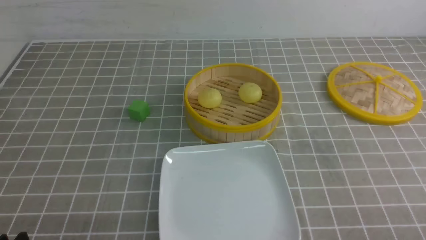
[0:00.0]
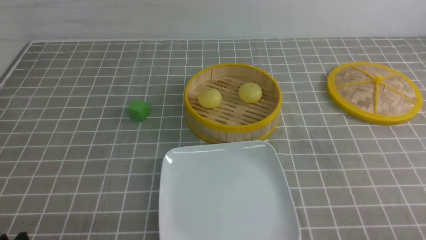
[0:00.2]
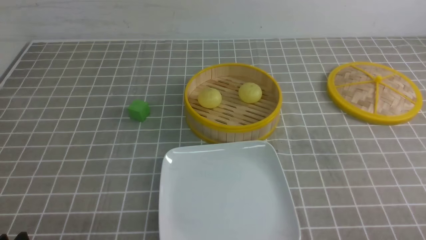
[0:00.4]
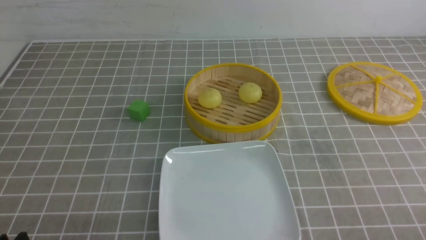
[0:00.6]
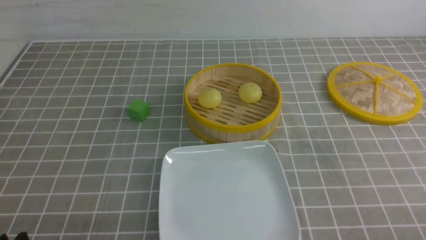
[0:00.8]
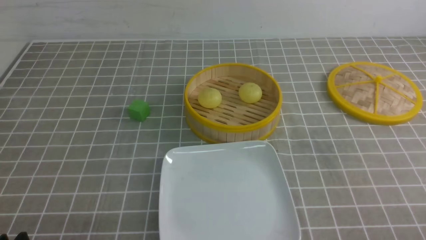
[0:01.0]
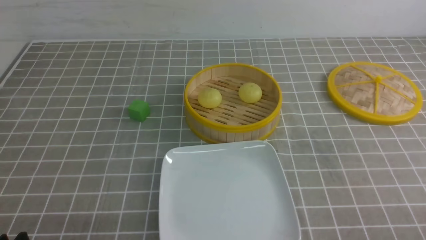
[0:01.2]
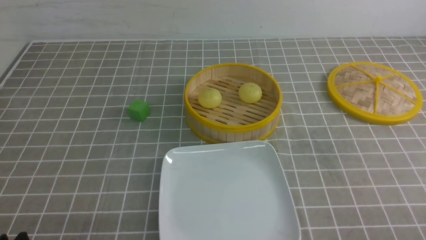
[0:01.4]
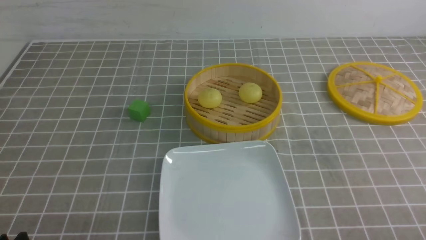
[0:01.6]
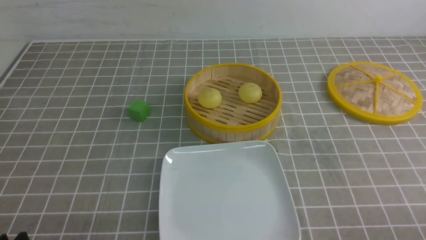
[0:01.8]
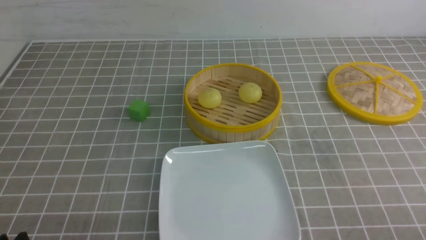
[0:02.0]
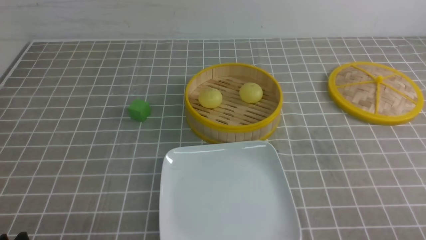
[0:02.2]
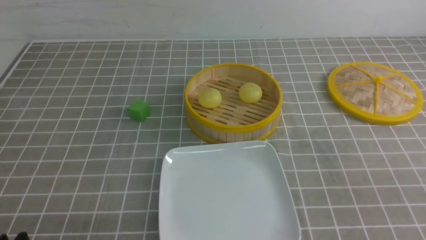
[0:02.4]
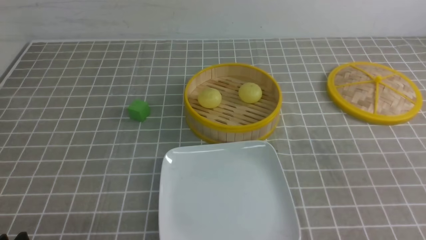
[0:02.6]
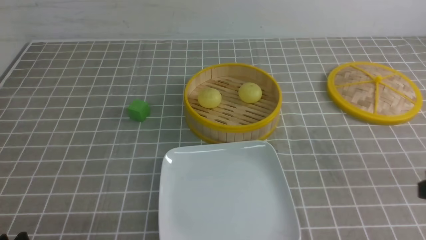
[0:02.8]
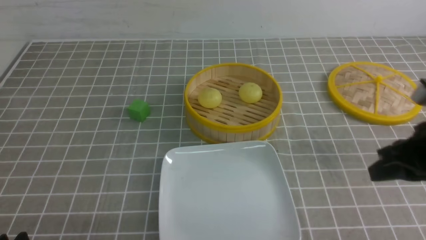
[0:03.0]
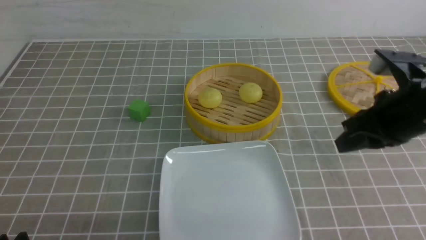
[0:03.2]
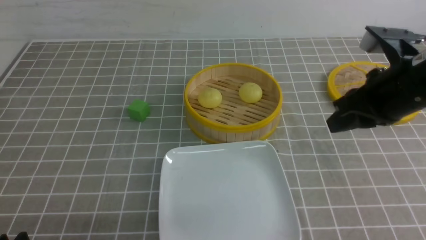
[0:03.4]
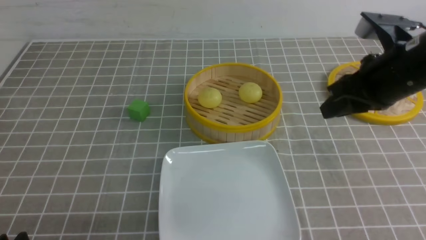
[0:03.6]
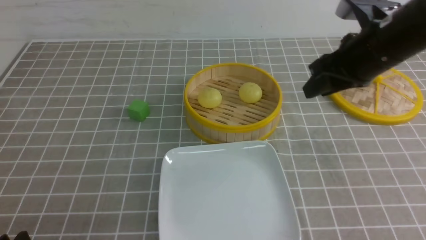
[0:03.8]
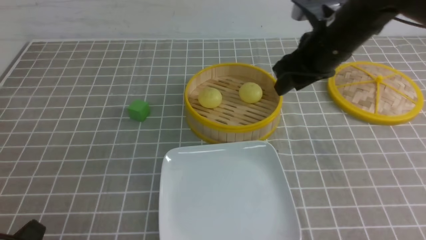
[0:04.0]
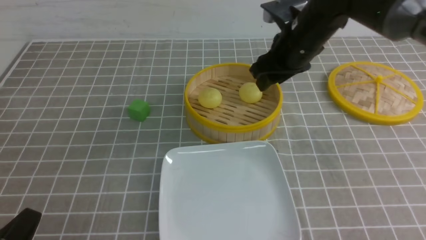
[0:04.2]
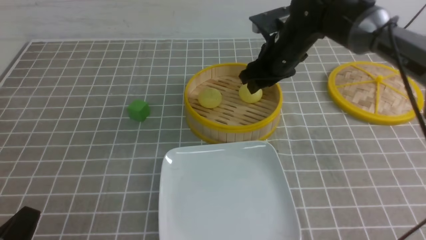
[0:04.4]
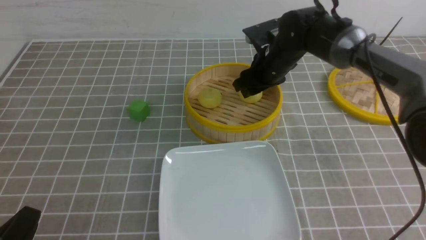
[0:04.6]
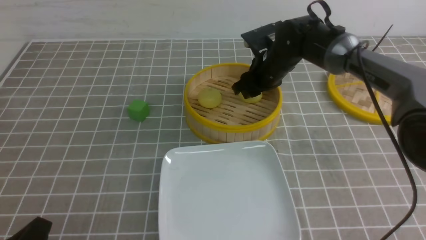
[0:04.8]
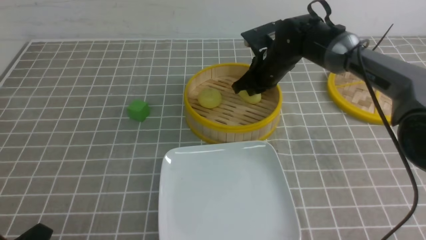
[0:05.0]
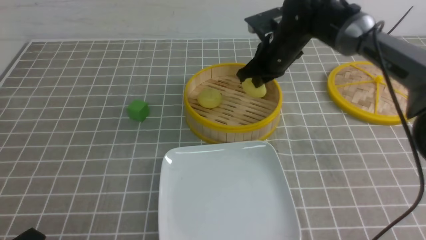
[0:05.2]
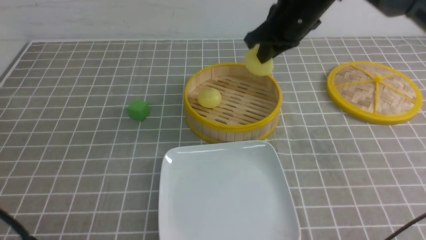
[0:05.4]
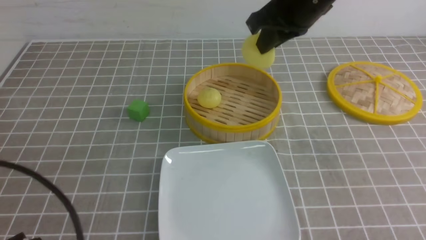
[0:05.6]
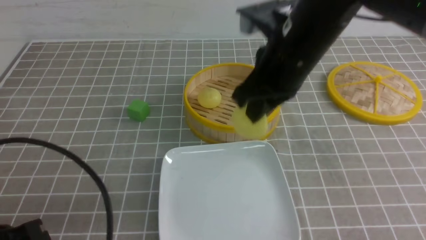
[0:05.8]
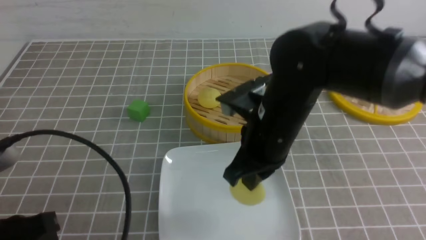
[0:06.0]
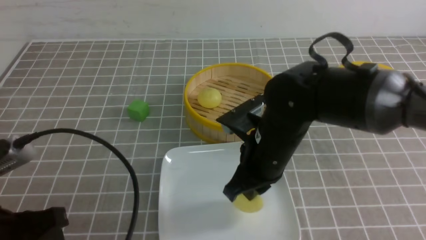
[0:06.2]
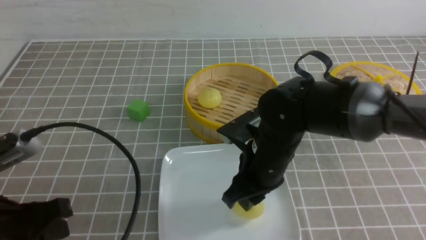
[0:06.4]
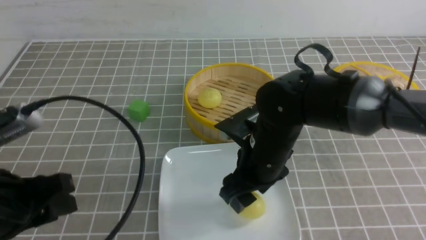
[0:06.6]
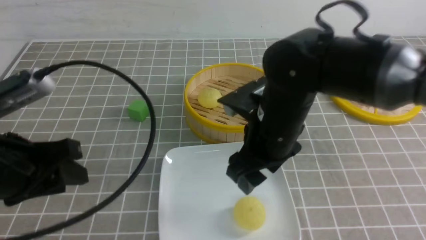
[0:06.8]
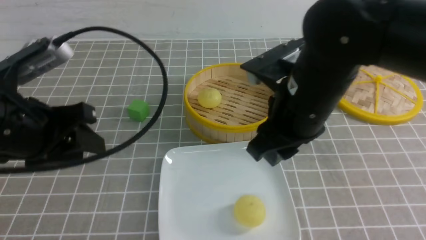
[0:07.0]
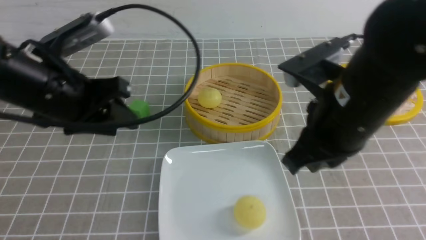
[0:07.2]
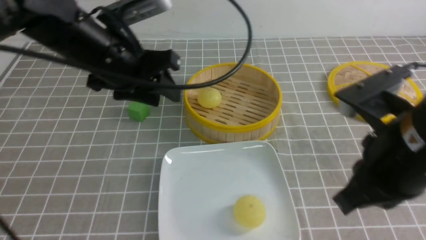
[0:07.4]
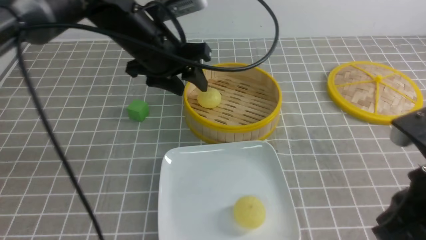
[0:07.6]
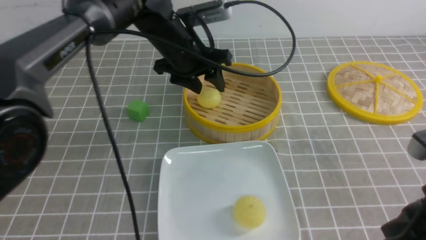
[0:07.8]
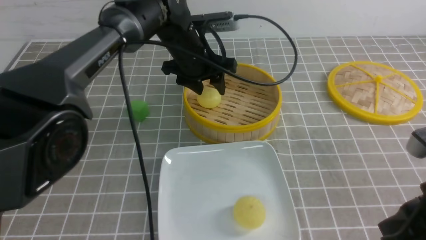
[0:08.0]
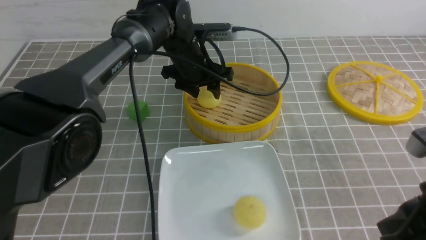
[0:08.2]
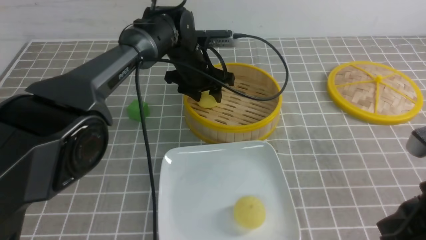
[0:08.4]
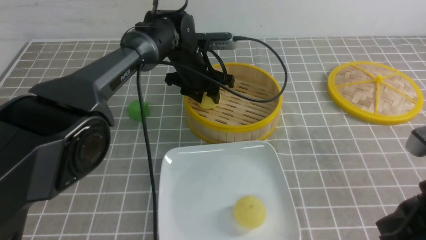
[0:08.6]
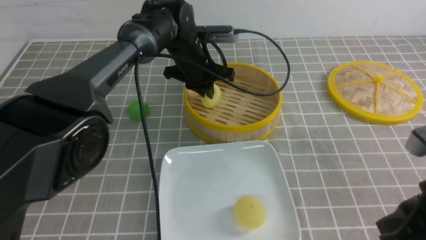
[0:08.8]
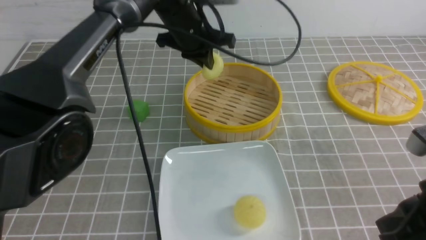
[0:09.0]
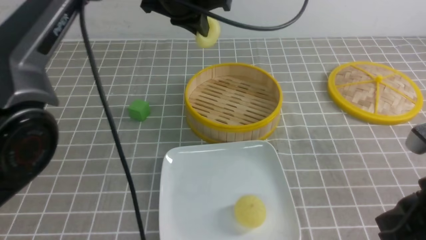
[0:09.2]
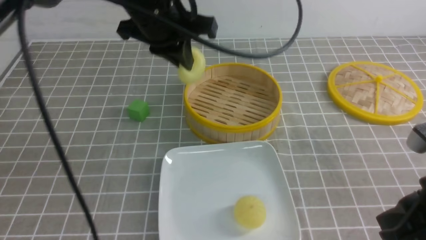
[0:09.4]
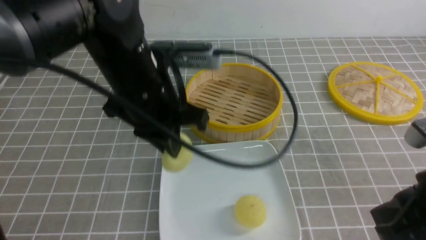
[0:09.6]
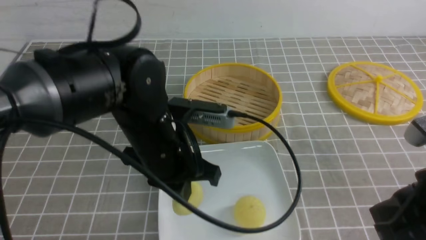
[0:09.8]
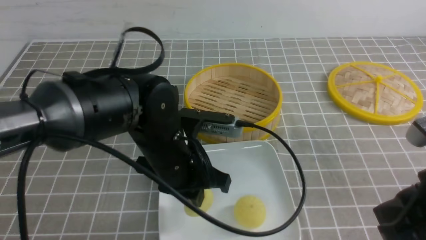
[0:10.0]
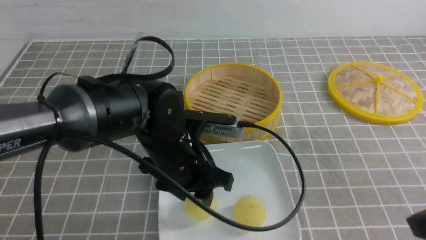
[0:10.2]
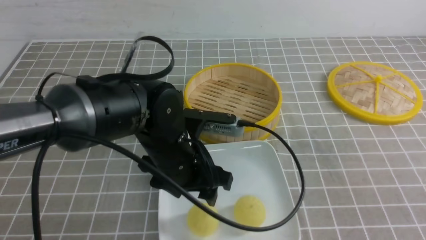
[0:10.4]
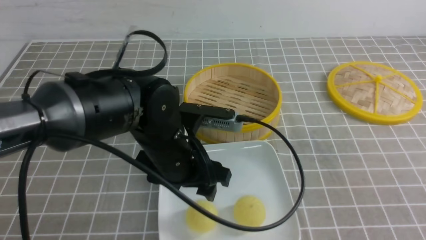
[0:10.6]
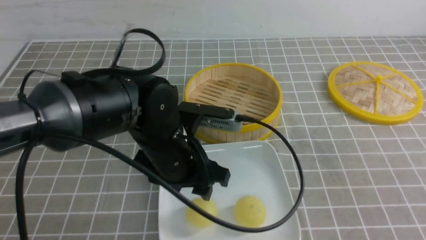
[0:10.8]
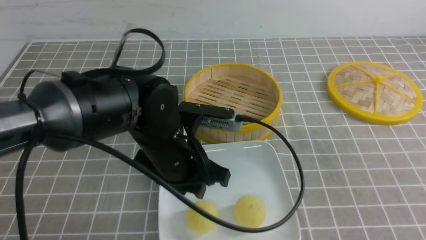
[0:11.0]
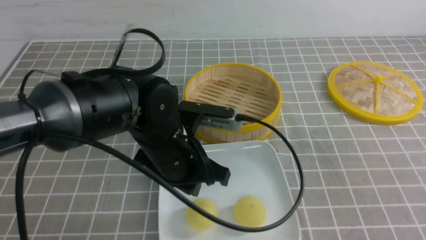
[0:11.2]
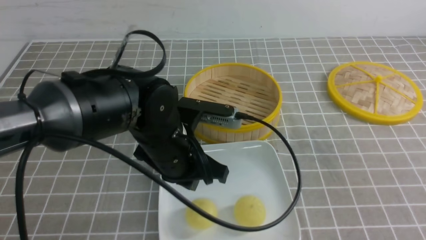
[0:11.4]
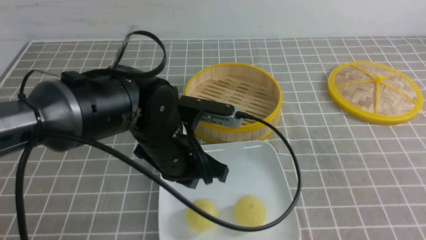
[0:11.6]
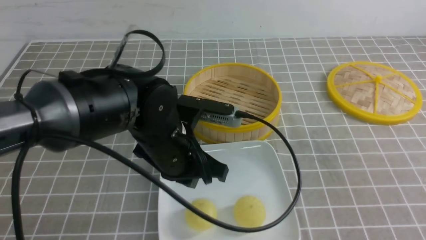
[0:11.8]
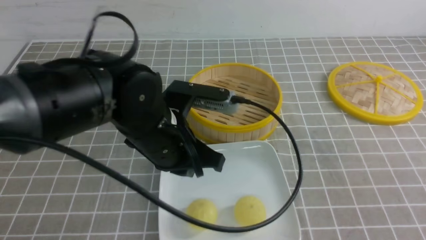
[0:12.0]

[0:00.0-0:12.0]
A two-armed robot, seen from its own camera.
Step, 0:00.0 to 0:05.0: use the right arm to grab the steamed stuffed bun that is closest to it.
Step, 0:05.2 to 0:06.4: use the right arm to put the steamed stuffed bun into the plate.
Step, 0:06.6 to 0:08.8: use the left arm to grab the steamed stuffed bun that is closest to it.
Step, 0:09.0 to 0:10.2: use the left arm to put the steamed stuffed bun into the plate.
0:01.6 to 0:03.0: The right gripper shifts some 20 cm forward and upward, and closes.
0:03.0 to 0:04.4: The right gripper moves forward and to the left, roughly 30 cm, and opens.
0:04.4 to 0:06.0: The left gripper heads upward, covering about 10 cm. Meanwhile the right gripper shifts about 15 cm backward, and closes.
0:06.0 to 0:07.6: The left gripper is displaced forward and to the right by some 30 cm, and opens up. Meanwhile the right gripper is displaced backward and to the right by approximately 20 cm, and opens, then closes once more.
0:07.6 to 0:09.0: The left gripper moves forward, approximately 5 cm, reaches about 10 cm downward, then returns, and closes its fingers.
0:09.0 to 0:10.4: The left gripper heads backward and downward, covering about 20 cm, and opens. Meanwhile the right gripper moves to the right and backward, some 10 cm.
0:10.4 to 0:12.0: The right gripper heads downward, covering approximately 5 cm; the left gripper goes about 5 cm upward, and closes up.

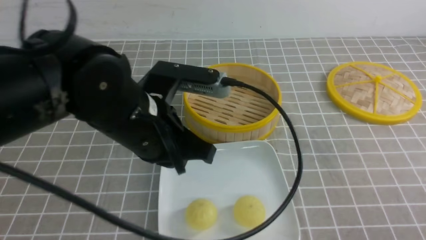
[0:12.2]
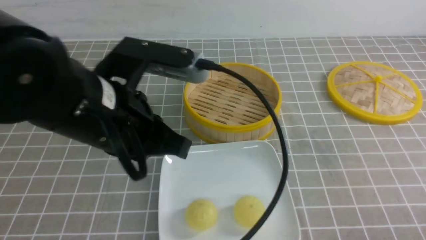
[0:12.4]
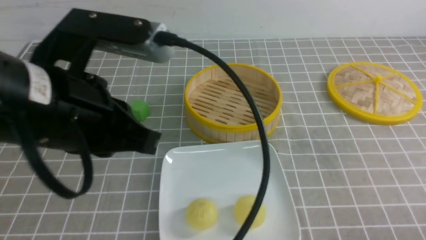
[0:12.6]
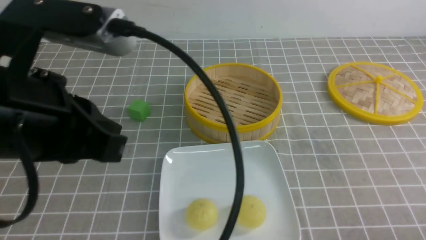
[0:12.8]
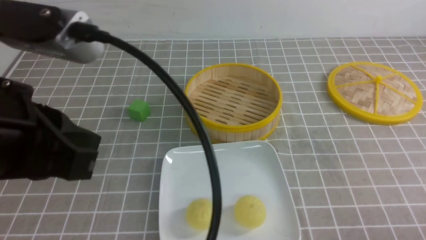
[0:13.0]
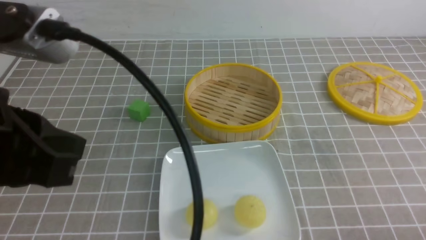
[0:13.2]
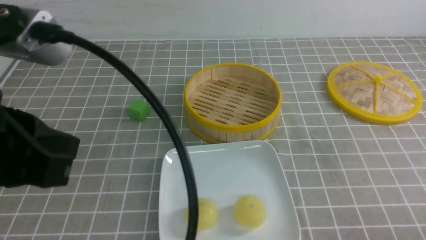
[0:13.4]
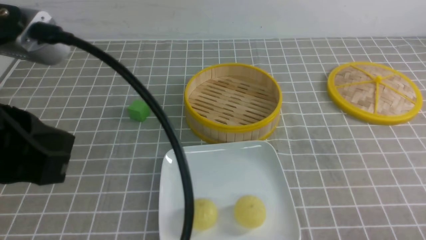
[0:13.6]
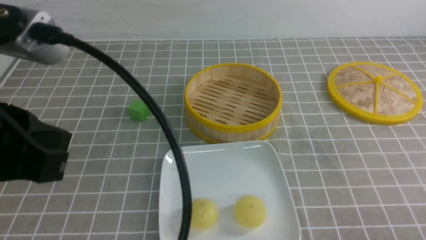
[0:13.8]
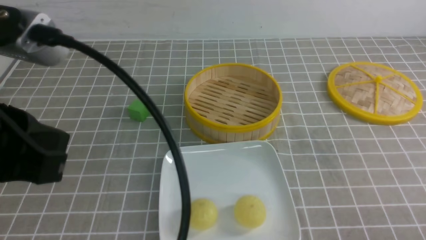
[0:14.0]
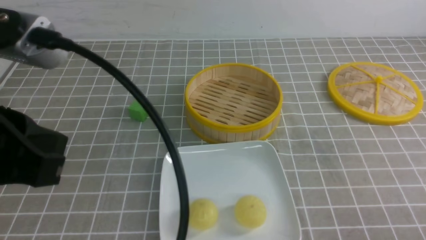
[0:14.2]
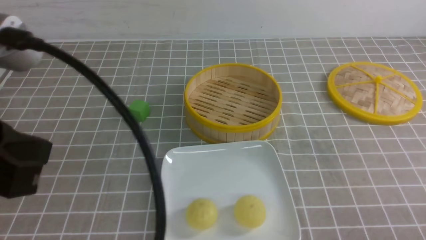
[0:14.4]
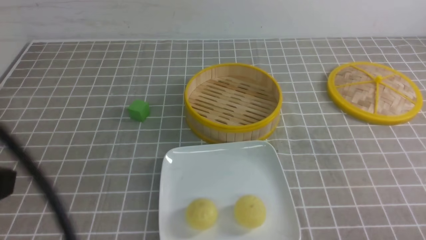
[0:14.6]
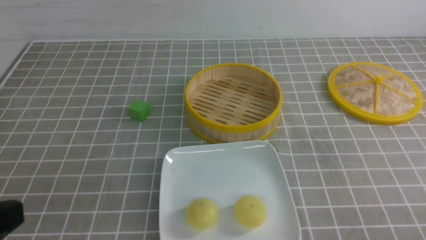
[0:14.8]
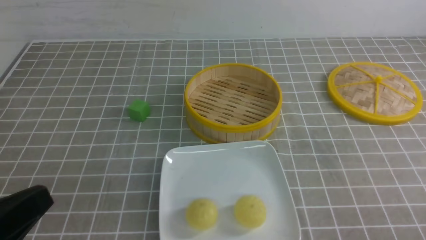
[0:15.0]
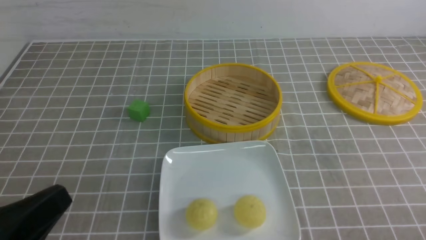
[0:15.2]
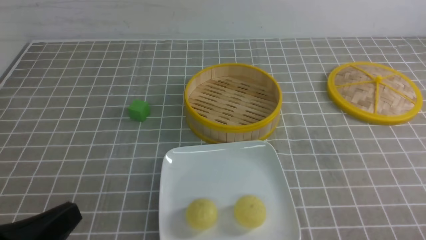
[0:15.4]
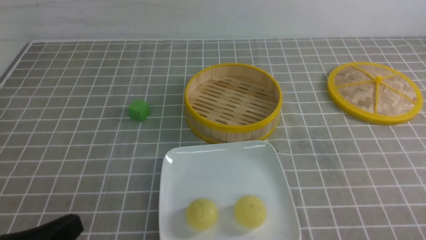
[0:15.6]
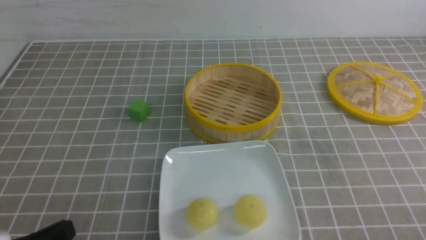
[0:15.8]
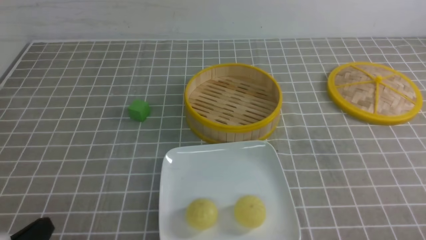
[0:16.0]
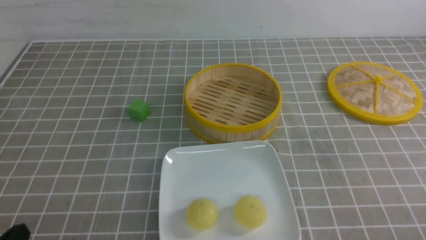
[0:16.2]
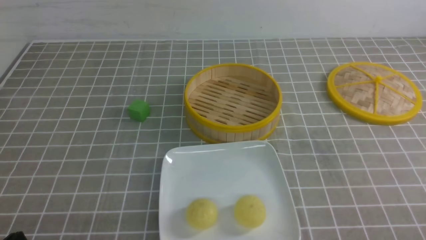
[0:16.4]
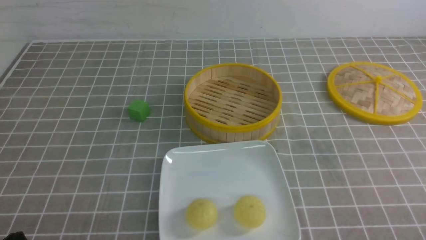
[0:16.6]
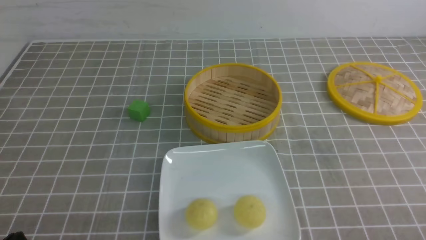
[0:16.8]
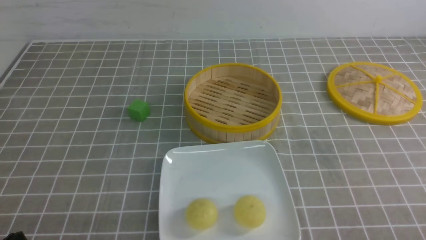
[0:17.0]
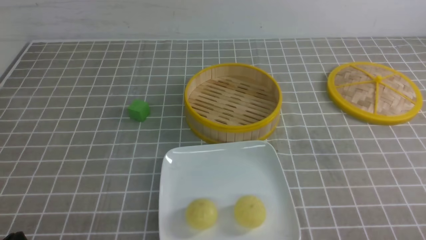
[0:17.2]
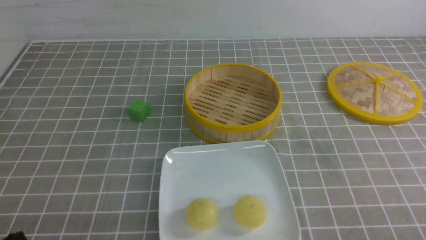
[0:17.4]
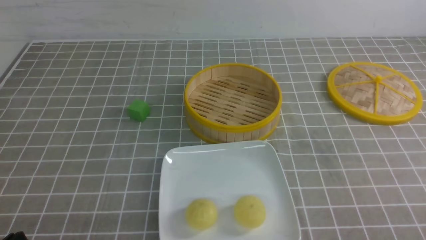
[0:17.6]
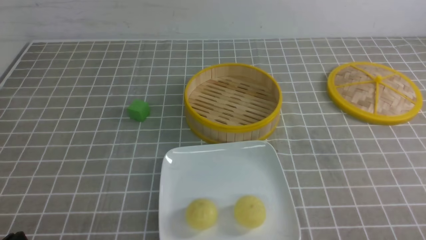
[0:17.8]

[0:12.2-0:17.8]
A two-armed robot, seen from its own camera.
0:12.2 to 0:13.6: The left gripper moves backward, to the left and upward, roughly 20 cm.
0:13.6 to 0:15.0: The left gripper heads downward and backward, covering about 10 cm.
0:15.0 to 0:16.4: The left gripper shifts approximately 15 cm downward.
0:16.4 to 0:17.8: Both grippers stay put.
